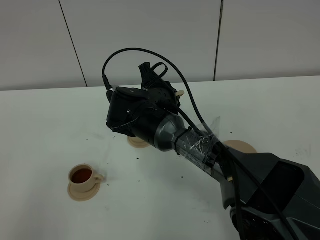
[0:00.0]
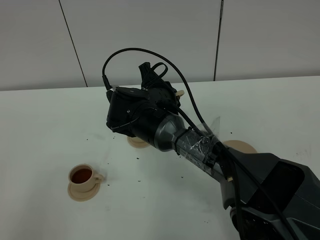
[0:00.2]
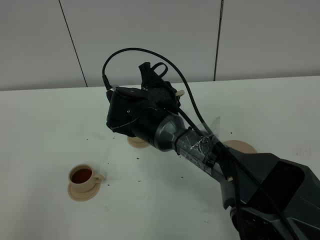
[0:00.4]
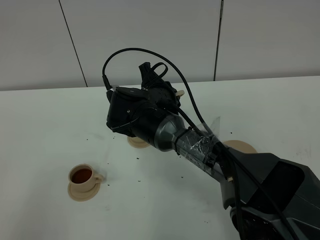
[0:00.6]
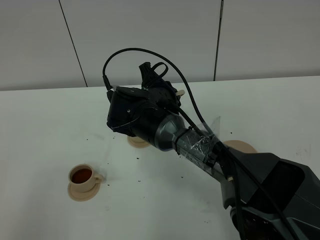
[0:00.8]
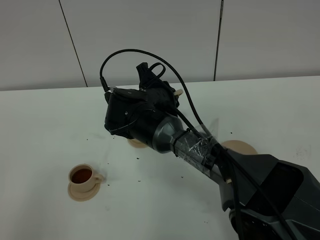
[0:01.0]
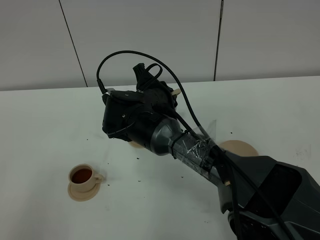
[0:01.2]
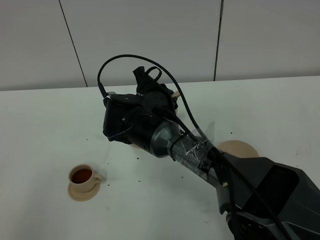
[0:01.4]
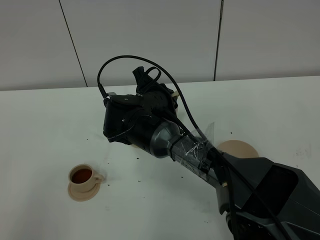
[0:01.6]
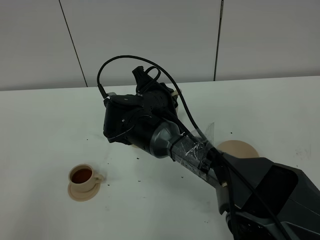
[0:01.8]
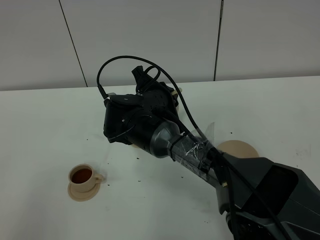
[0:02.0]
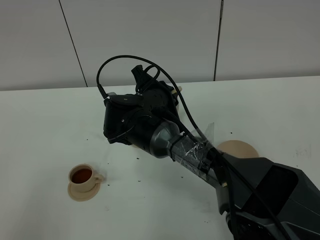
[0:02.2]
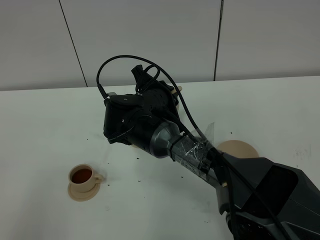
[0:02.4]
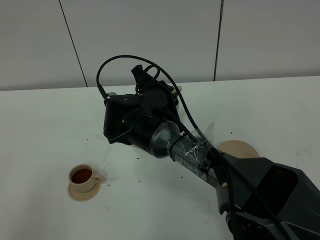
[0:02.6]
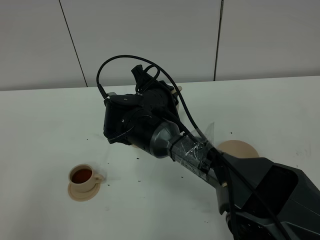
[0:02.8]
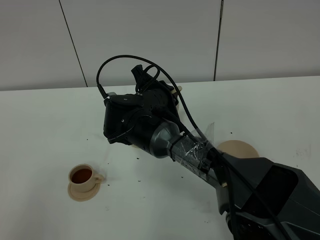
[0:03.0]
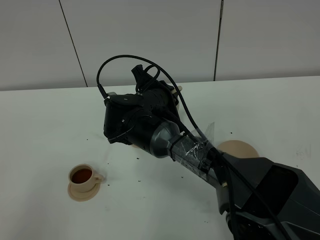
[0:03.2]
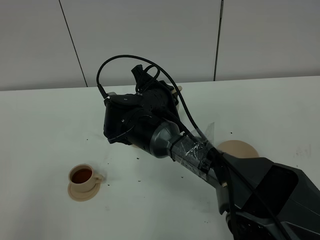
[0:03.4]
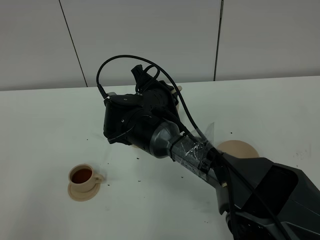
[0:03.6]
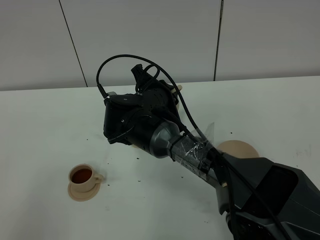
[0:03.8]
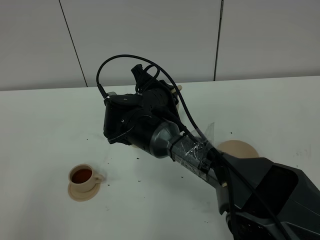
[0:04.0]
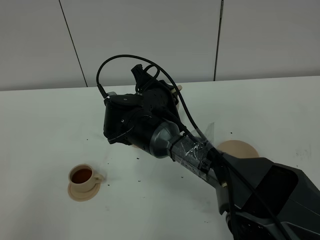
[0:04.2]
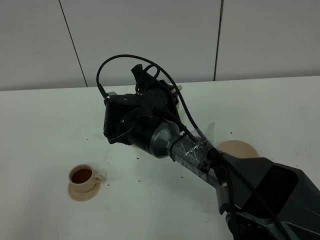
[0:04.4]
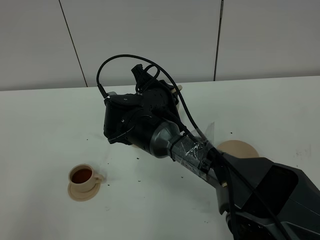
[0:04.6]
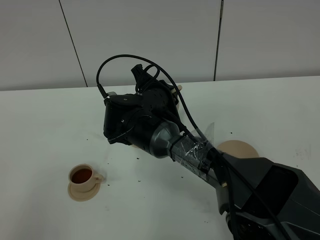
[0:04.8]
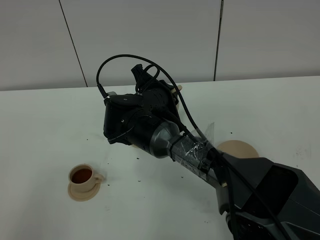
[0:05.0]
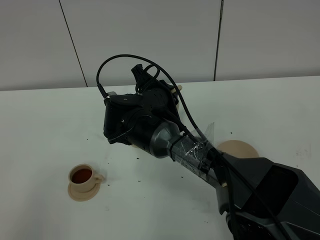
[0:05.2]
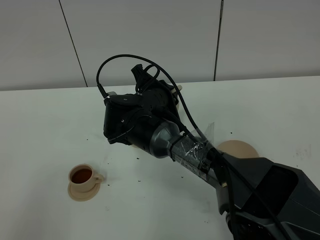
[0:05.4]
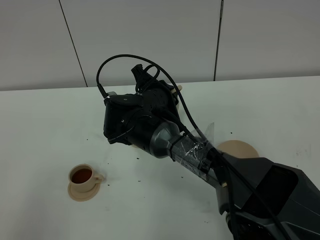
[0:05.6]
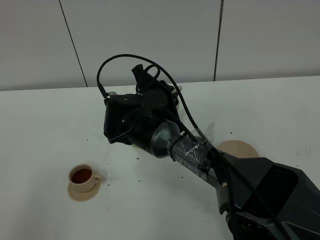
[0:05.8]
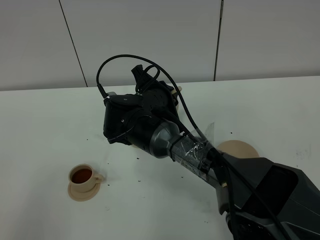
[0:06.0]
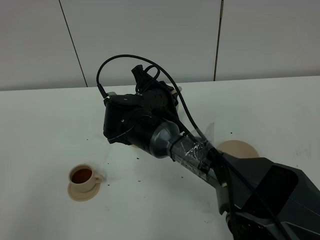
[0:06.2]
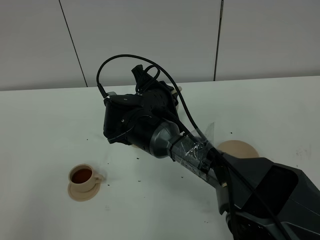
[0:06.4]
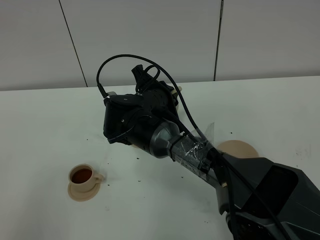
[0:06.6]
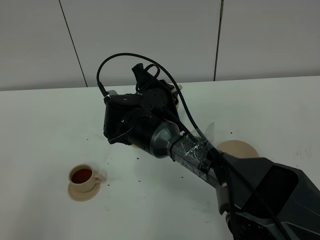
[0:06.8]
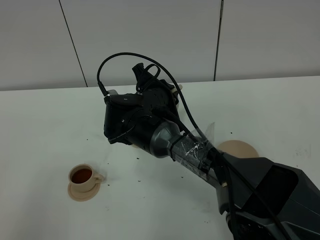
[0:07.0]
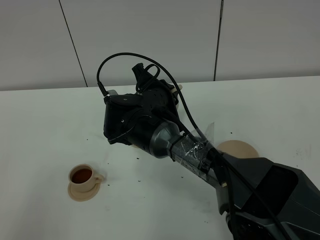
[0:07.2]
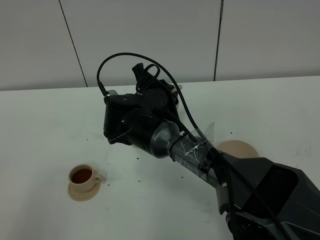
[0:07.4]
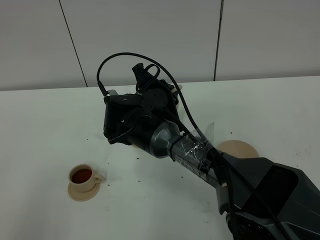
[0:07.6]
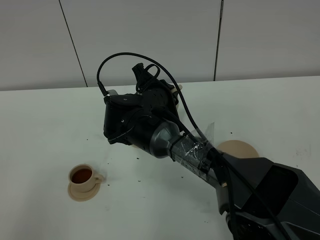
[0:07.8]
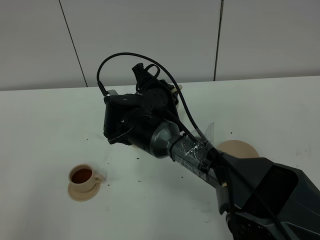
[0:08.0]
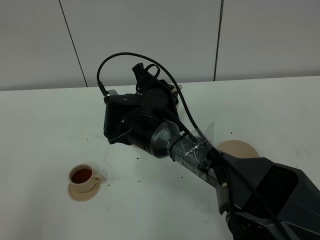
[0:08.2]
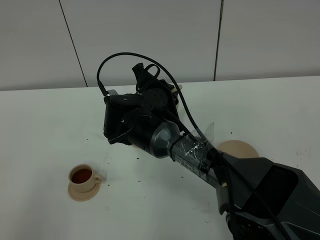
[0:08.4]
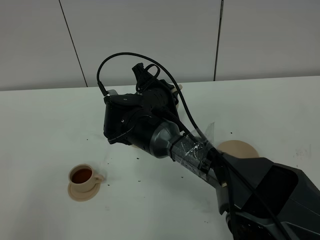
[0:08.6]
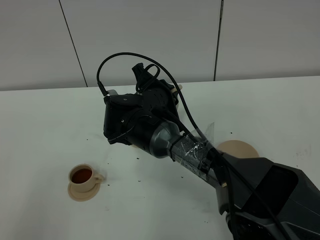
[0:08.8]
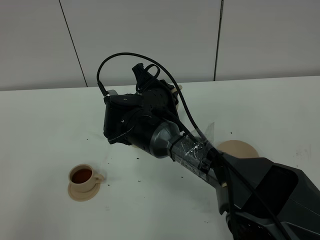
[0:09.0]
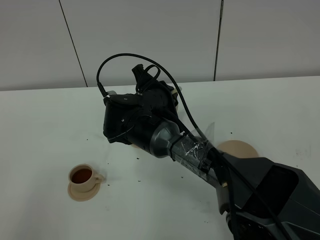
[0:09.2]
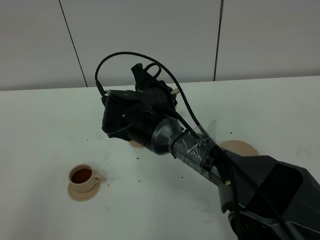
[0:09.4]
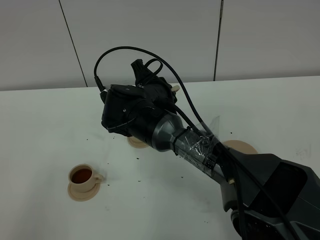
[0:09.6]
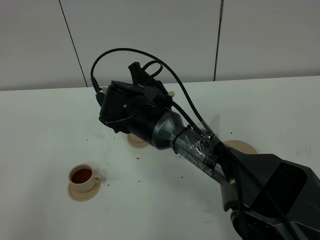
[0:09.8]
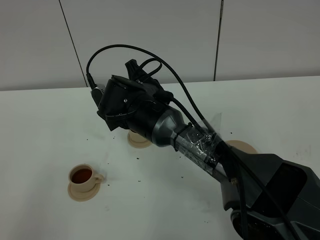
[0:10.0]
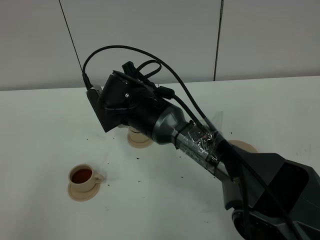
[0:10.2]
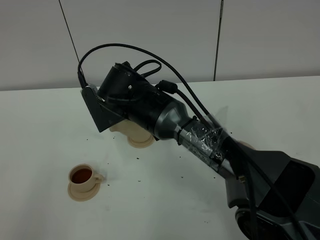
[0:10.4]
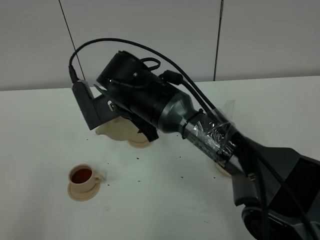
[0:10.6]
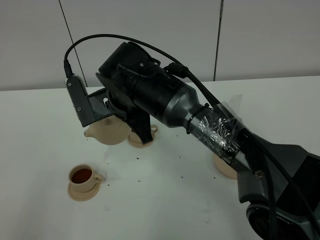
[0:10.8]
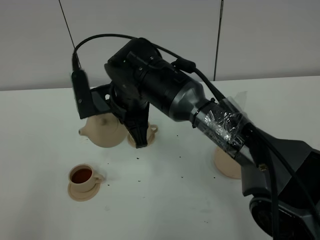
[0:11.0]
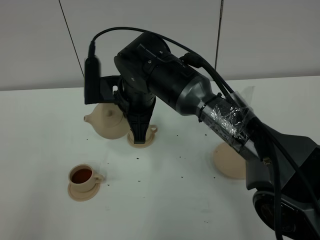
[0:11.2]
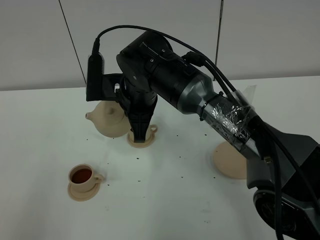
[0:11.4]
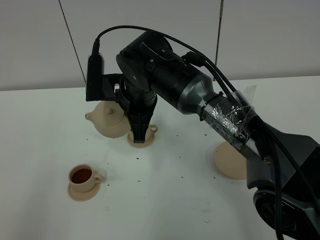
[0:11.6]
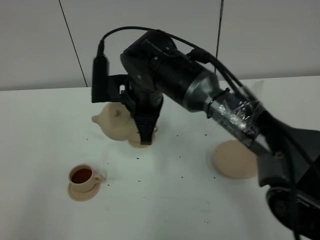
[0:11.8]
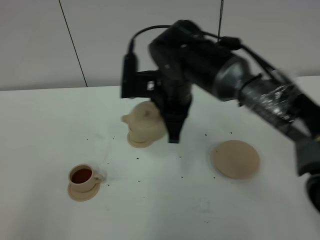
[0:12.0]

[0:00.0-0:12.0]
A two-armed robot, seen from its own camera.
Task of the whole recording: grasp the brown teapot and pour the tea into the two brown teacups one by one, put the brown teapot back in its original place.
Step, 0:00.0 to 0:09.4: Pour tea into the teacup with the right gripper.
0:00.0 to 0:01.6: There are only small adjustments of the grippers.
0:01.6 to 0:09.0: Neither gripper changes place.
0:09.0 to 0:10.4: The right gripper changes place by approximately 5 cm.
0:10.4 to 0:12.0: The right gripper shifts about 10 cm to the right.

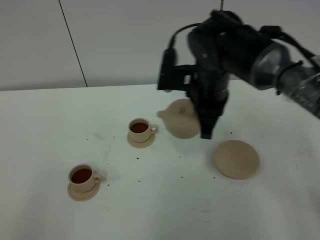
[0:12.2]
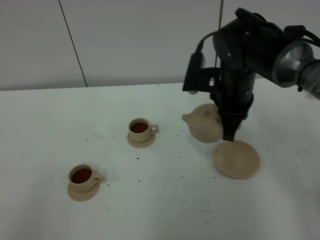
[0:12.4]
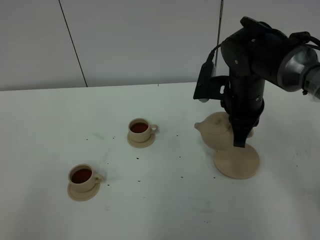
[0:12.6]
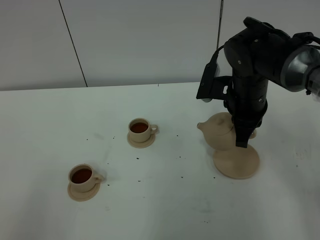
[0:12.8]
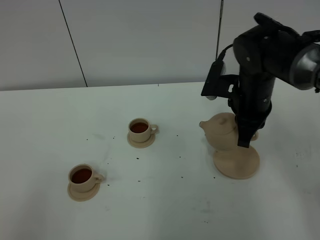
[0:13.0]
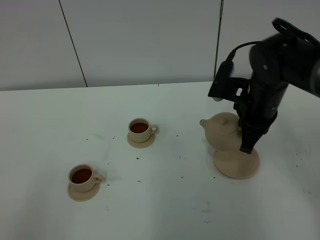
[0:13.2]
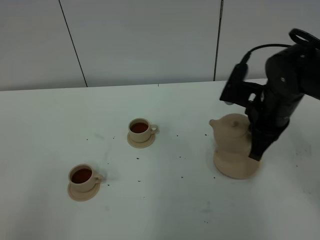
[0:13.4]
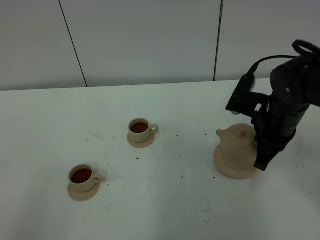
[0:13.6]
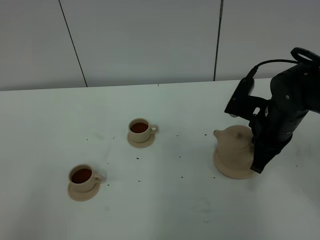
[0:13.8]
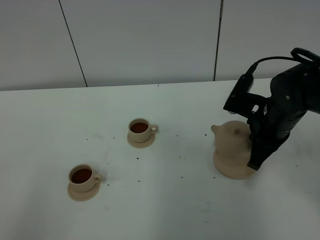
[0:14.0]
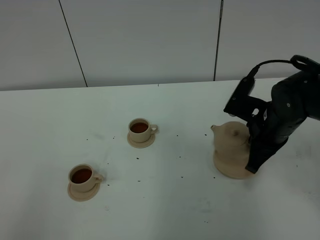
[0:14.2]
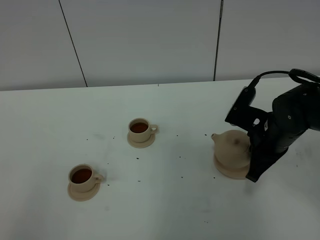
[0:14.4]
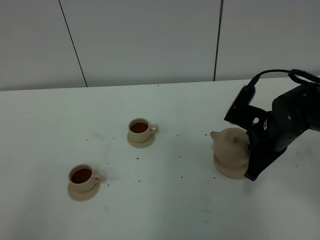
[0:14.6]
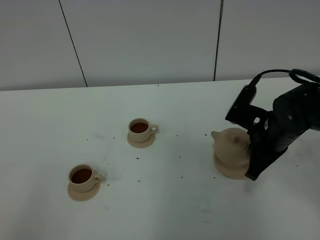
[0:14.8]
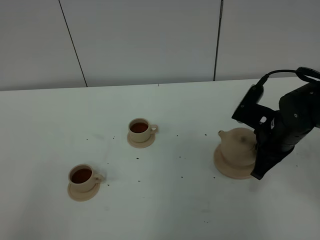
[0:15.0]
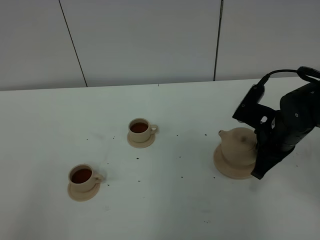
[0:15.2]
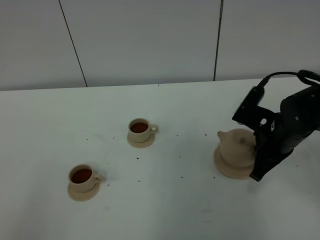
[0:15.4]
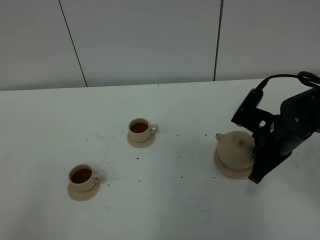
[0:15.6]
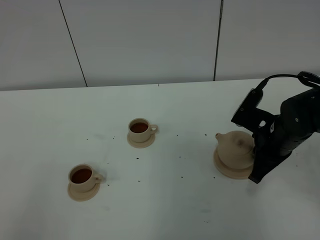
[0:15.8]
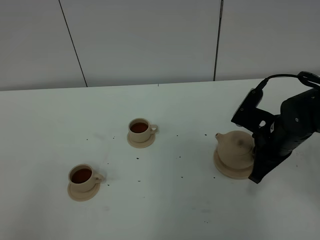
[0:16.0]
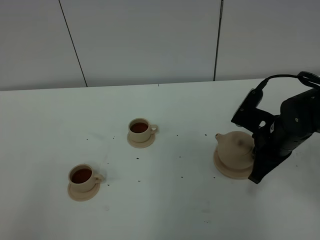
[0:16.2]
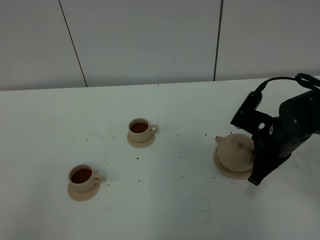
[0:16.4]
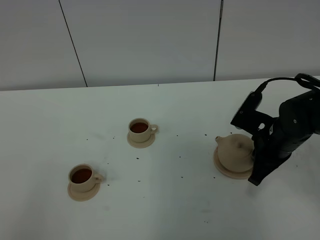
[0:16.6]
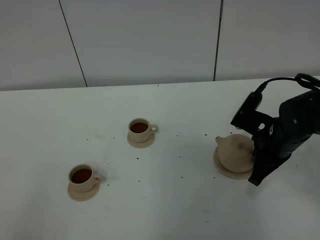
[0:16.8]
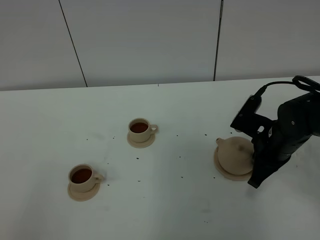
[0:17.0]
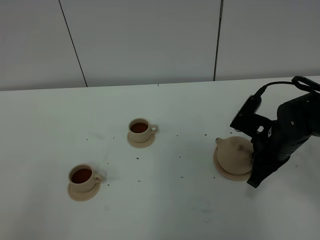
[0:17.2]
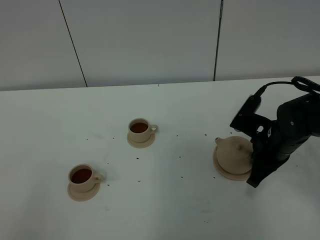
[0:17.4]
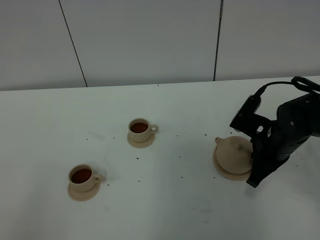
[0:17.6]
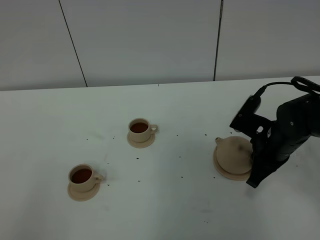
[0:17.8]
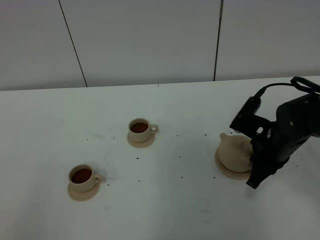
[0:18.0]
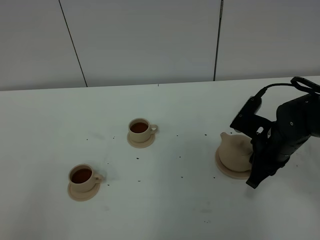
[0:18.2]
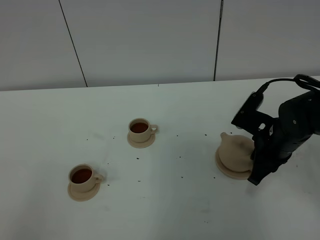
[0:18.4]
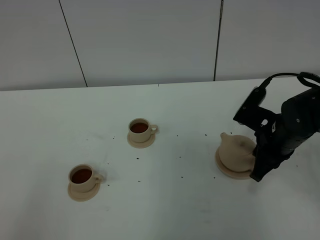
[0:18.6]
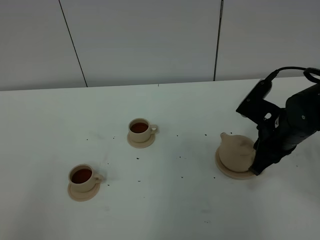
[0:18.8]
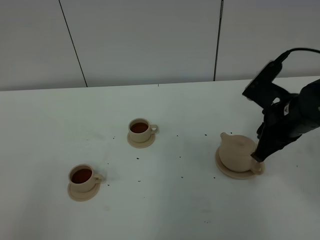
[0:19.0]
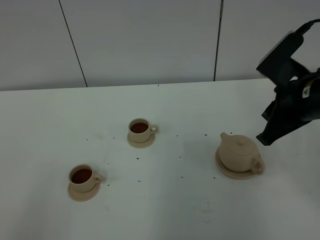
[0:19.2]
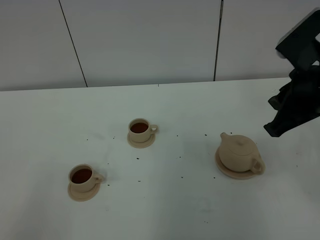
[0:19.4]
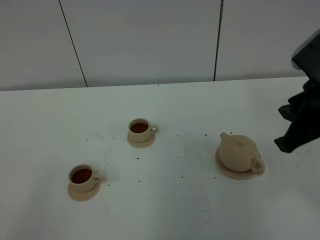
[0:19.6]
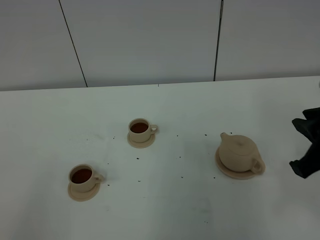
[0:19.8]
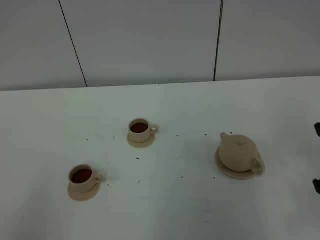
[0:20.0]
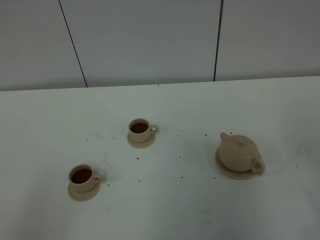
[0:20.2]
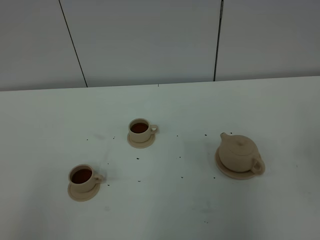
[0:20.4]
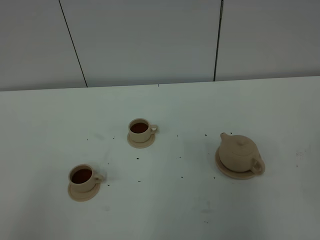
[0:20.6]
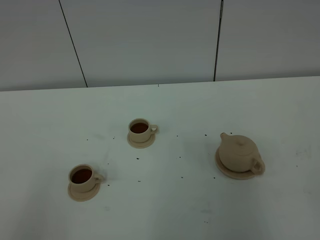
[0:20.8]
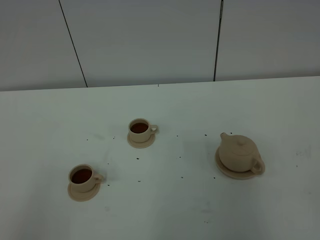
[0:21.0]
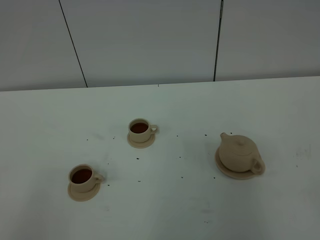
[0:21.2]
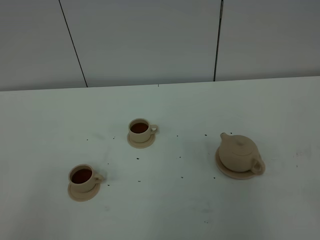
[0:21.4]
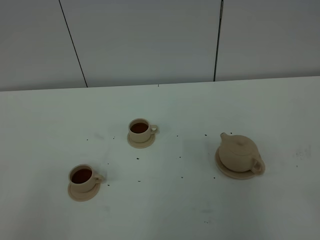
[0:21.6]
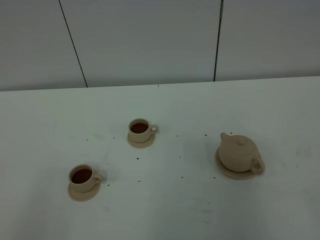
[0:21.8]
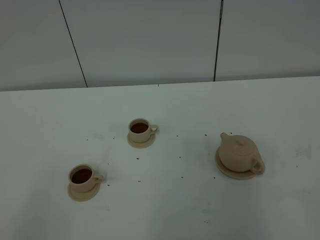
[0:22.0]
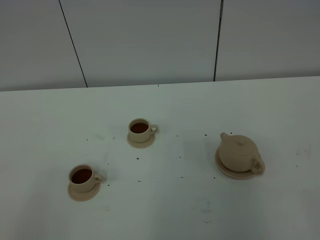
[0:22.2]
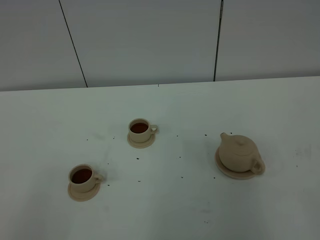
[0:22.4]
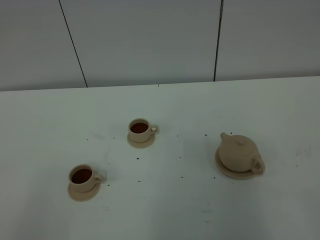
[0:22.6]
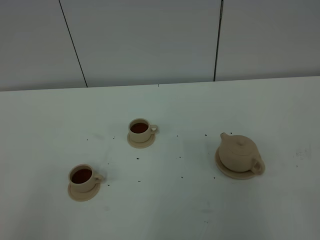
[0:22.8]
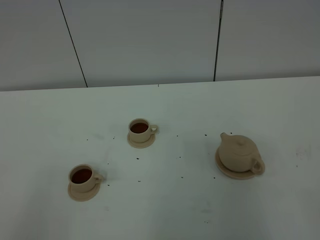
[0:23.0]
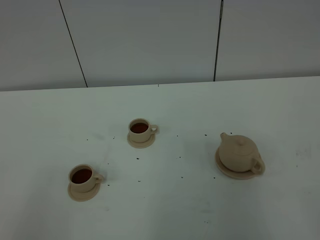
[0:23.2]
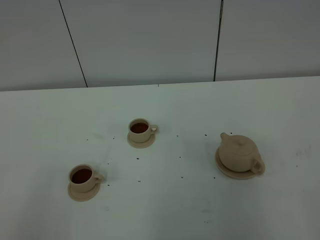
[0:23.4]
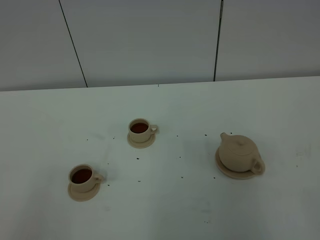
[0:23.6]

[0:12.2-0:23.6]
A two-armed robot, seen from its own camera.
Task of the whole recording: grasp the brown teapot and pour the tea into the two brown teacups one by one, put the brown teapot back in its original place.
0:12.2 to 0:13.6: The right gripper moves to the right and downward, approximately 10 cm.
0:13.6 to 0:15.0: There are only small adjustments of the grippers.
0:15.0 to 0:16.4: Both grippers stay about where they are.
0:16.4 to 0:17.8: Neither gripper changes place.
0:17.8 to 0:19.4: The right gripper travels upward by roughly 20 cm.
0:19.4 to 0:20.8: The right gripper is displaced backward and to the right by approximately 25 cm.
0:22.2 to 0:23.6: Both grippers stay about where they are.
